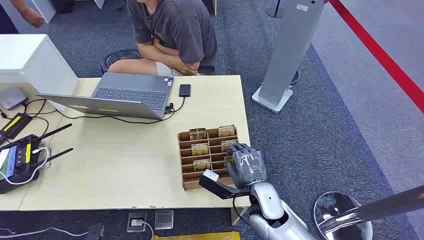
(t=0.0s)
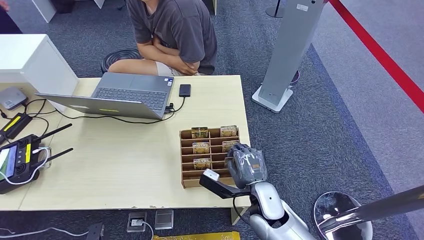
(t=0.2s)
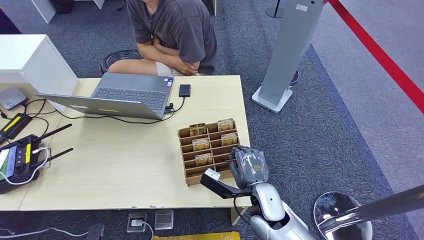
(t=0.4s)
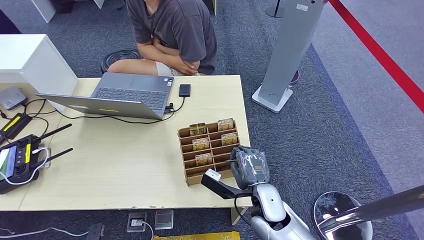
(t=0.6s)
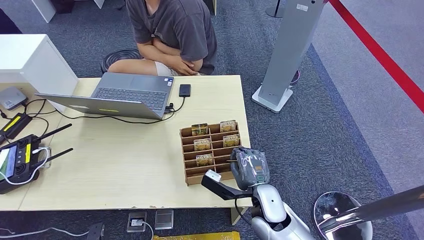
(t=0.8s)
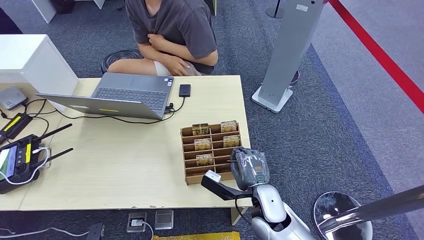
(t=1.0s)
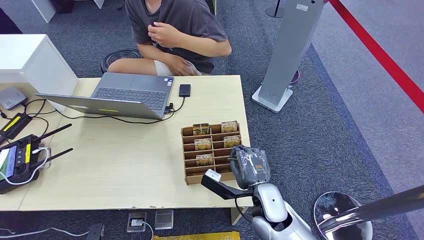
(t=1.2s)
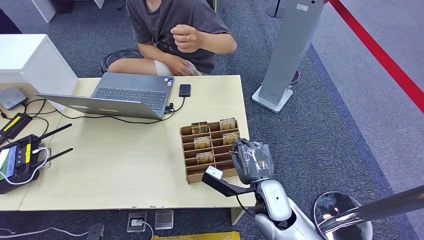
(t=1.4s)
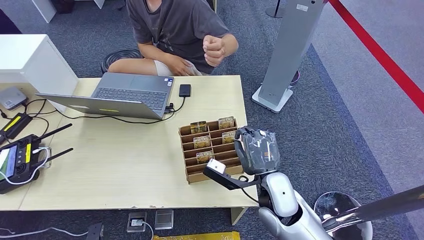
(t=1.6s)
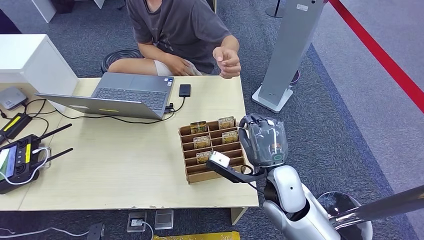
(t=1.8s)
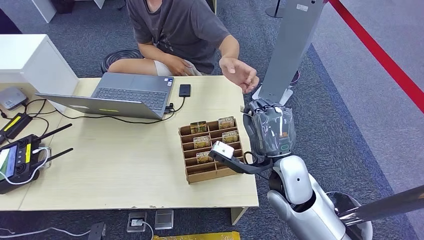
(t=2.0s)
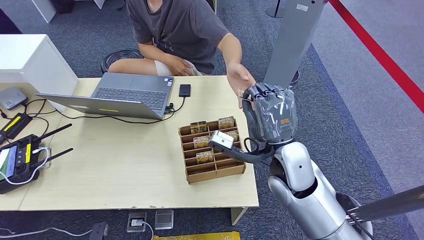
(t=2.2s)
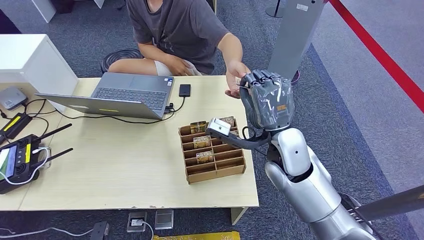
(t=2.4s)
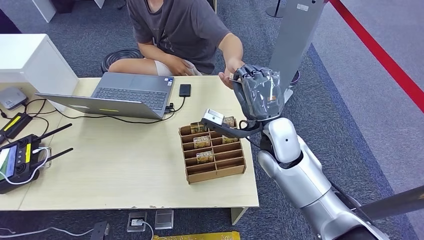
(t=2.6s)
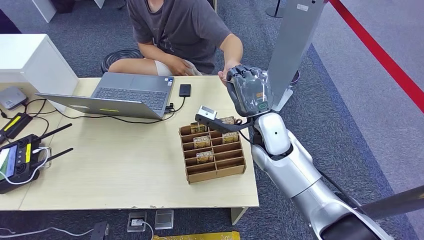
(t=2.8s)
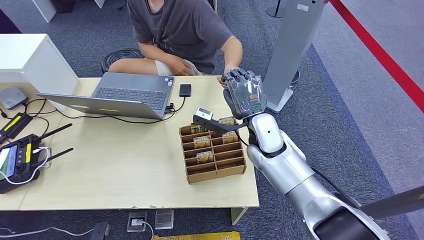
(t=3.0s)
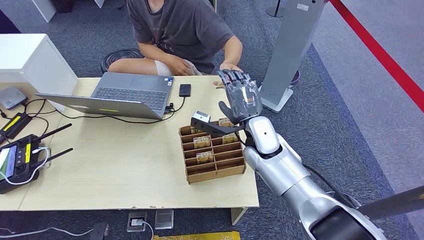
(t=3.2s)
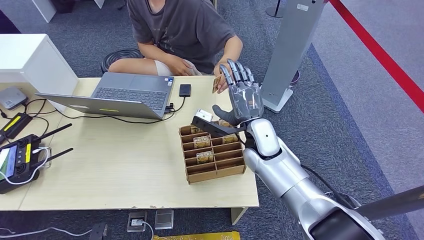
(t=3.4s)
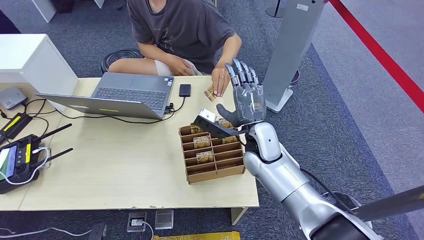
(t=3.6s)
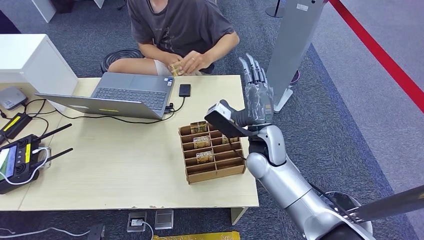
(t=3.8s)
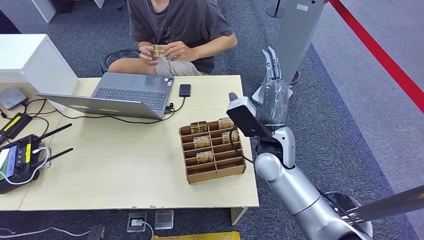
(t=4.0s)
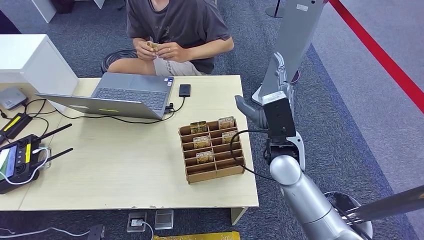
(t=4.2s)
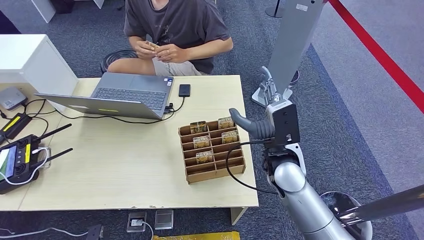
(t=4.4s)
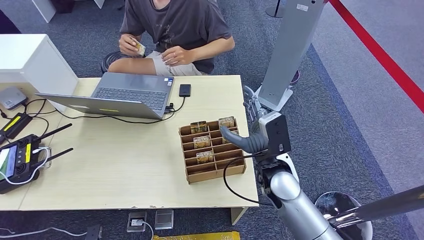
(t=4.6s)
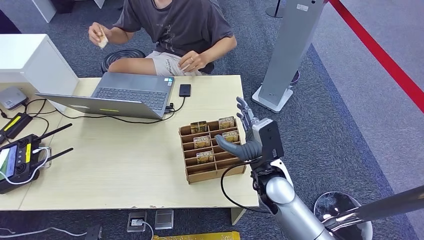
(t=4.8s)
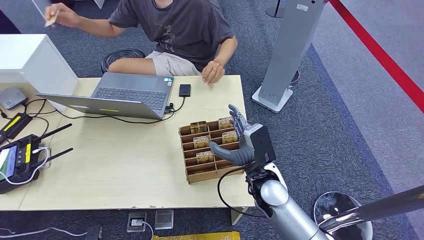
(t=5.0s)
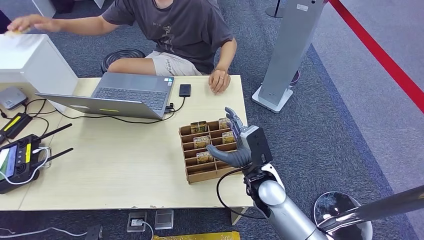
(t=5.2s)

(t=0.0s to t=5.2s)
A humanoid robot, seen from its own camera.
Step, t=0.0s - t=1.8s: Pick up the room card from the card holder.
Step, t=2.0s - t=5.2s: Hand the room card to the target.
t=1.8s - t=3.4s: The right hand moves forward, roughly 10 cm.
t=3.4s - t=5.2s: The right hand travels backward and downward by some 10 cm.

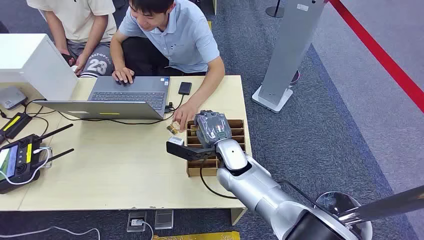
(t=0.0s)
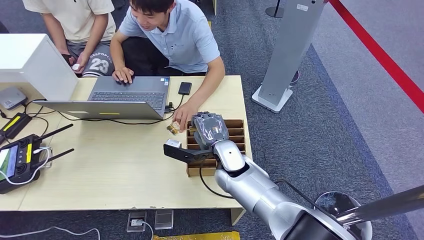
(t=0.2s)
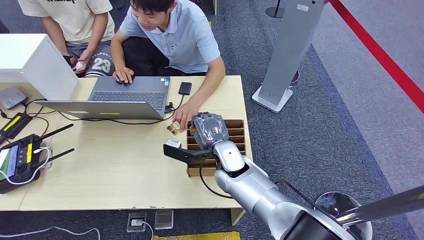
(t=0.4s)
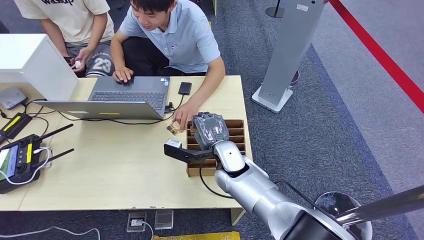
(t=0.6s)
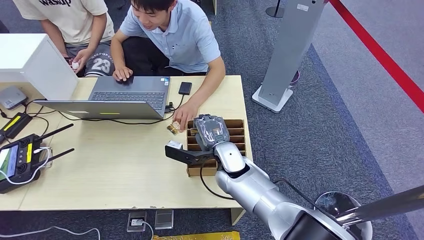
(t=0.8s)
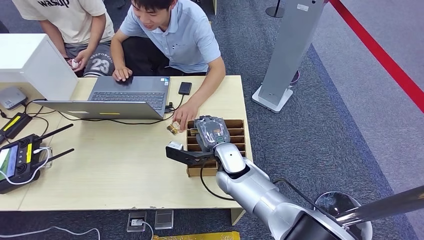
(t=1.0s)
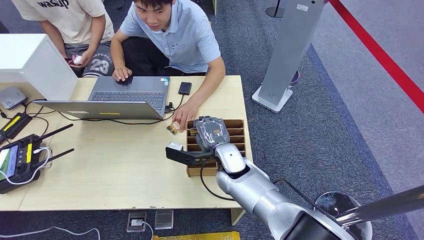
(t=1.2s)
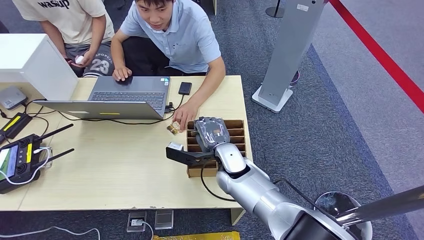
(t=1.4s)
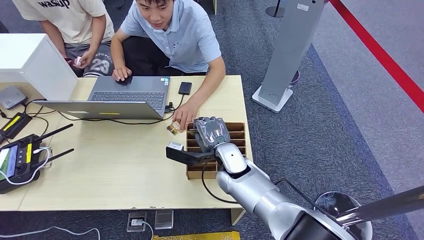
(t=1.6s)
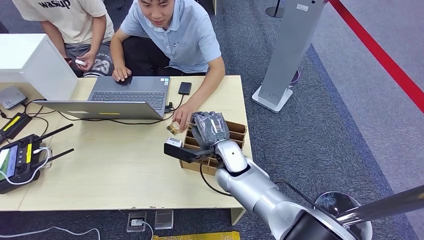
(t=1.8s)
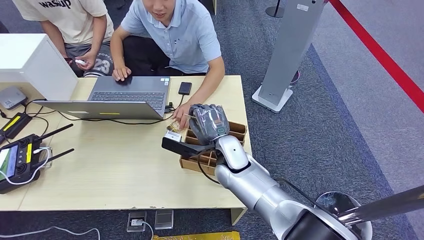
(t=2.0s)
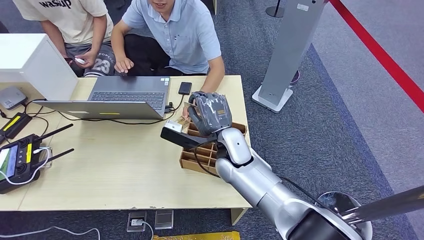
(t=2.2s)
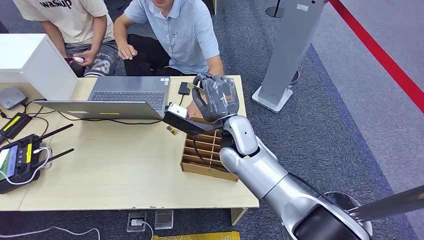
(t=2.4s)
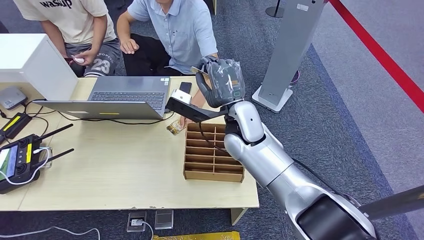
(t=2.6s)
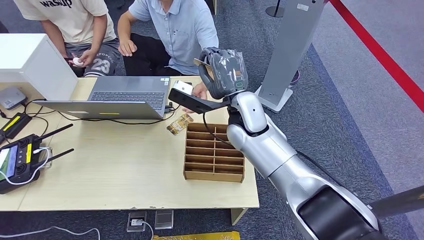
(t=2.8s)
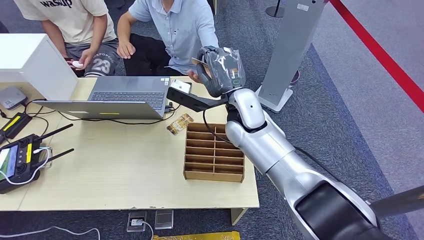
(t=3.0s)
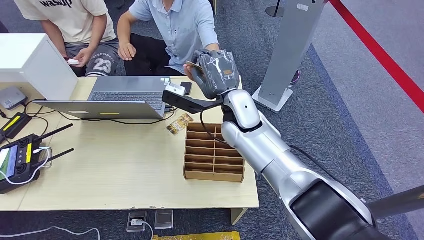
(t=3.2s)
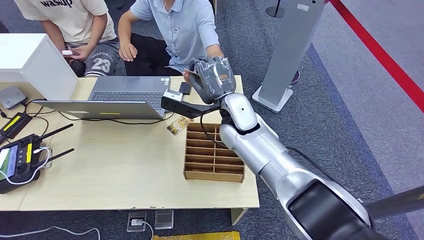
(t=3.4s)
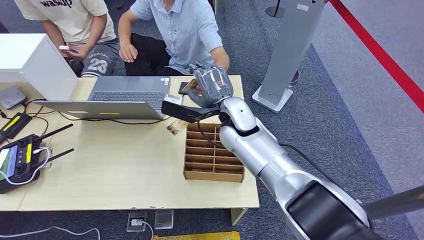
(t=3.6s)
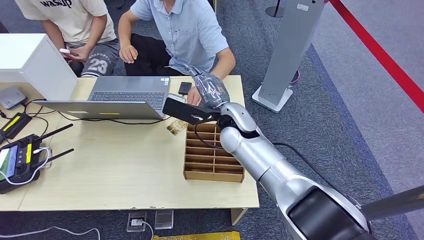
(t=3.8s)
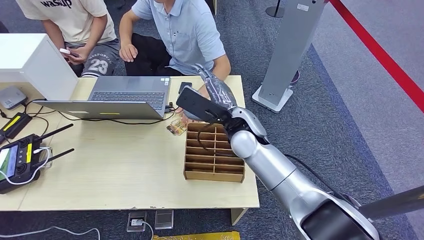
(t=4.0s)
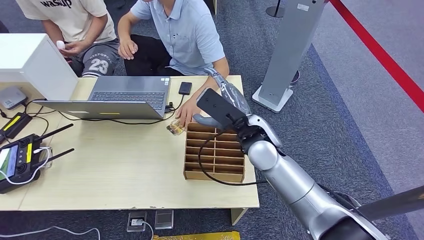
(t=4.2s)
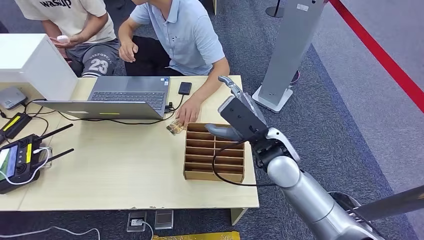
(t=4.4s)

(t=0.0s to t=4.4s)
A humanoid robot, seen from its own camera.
Step, t=0.0s - t=2.2s: Pick up the room card from the card holder.
Step, t=2.6s - t=4.2s: Hand the room card to the target.
t=3.0s - t=4.4s: The right hand moves backward and to the right, approximately 10 cm.
